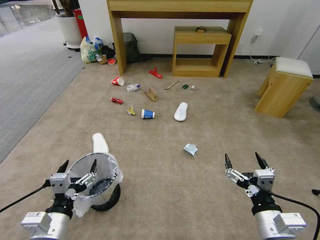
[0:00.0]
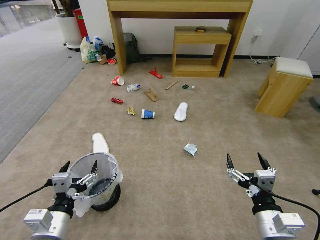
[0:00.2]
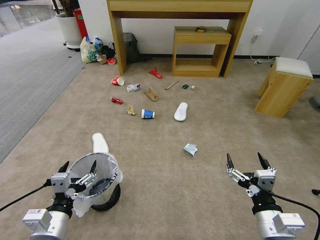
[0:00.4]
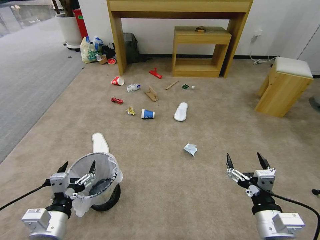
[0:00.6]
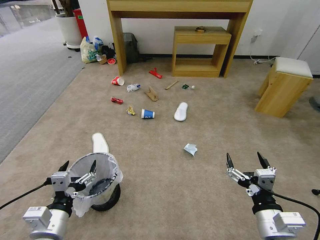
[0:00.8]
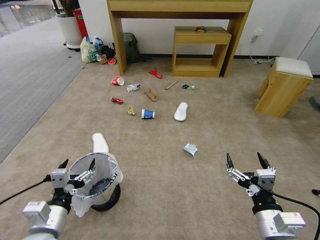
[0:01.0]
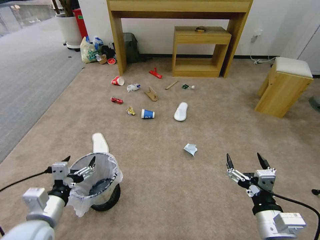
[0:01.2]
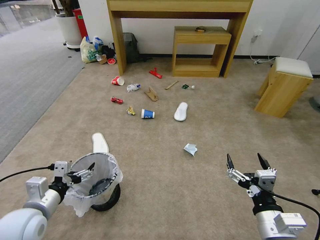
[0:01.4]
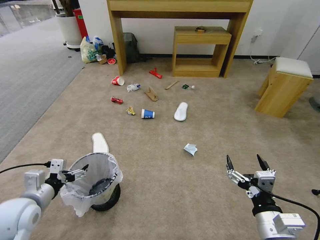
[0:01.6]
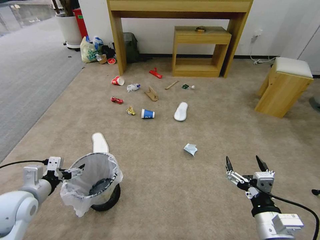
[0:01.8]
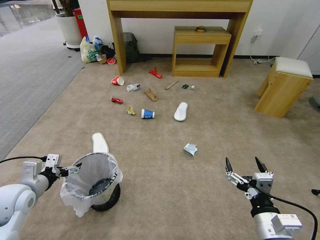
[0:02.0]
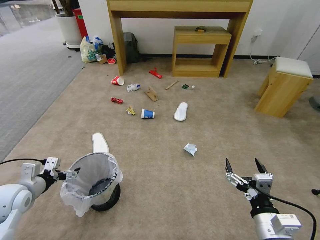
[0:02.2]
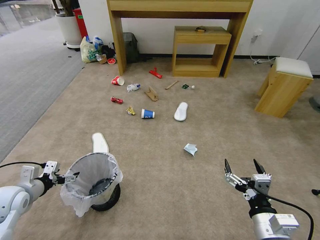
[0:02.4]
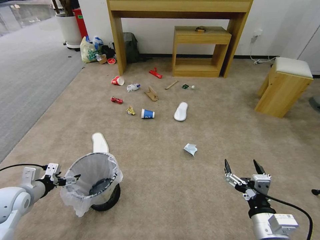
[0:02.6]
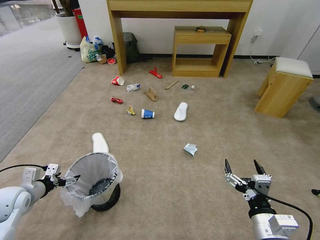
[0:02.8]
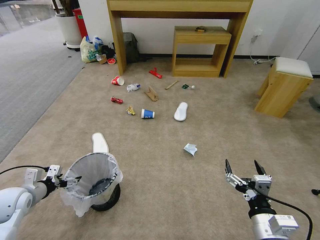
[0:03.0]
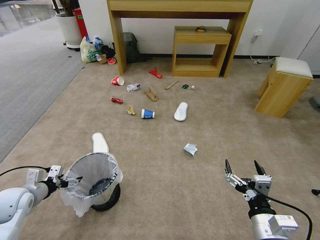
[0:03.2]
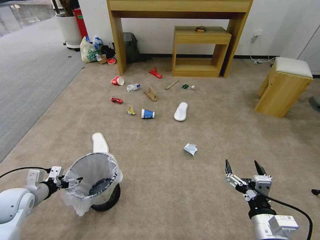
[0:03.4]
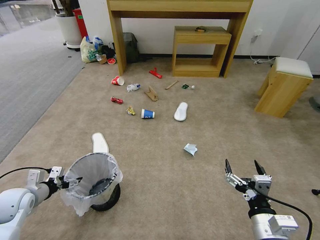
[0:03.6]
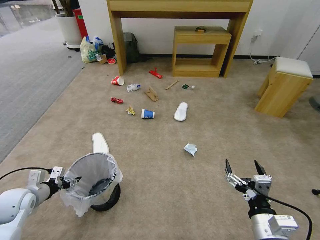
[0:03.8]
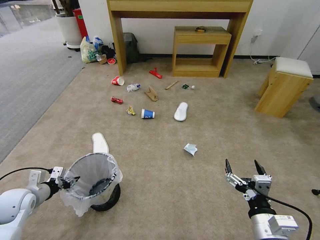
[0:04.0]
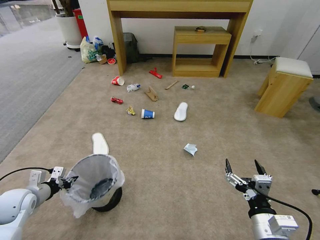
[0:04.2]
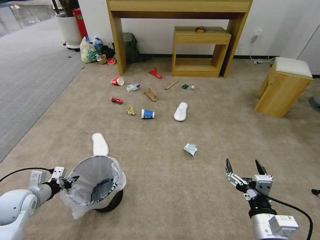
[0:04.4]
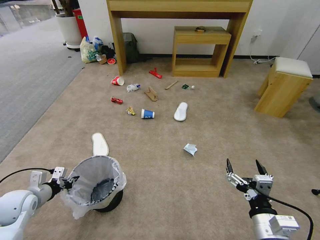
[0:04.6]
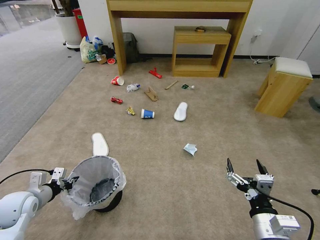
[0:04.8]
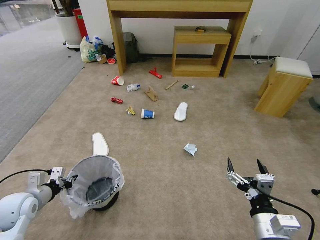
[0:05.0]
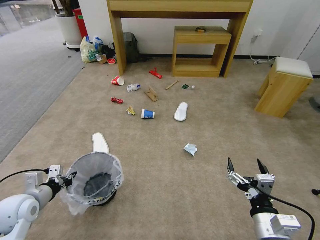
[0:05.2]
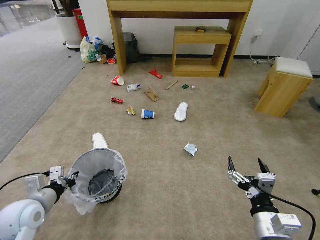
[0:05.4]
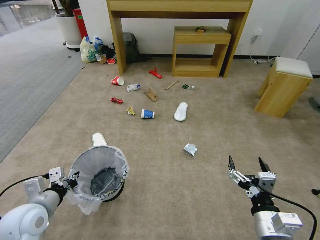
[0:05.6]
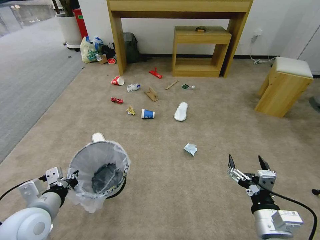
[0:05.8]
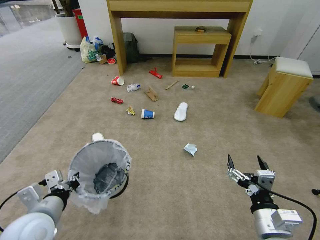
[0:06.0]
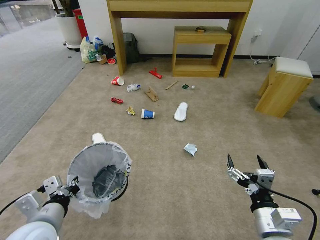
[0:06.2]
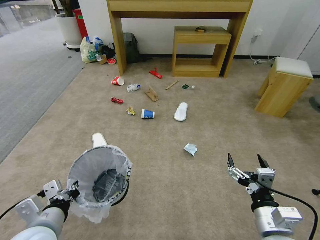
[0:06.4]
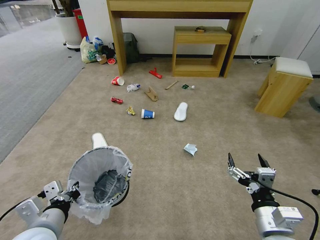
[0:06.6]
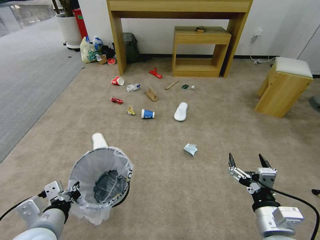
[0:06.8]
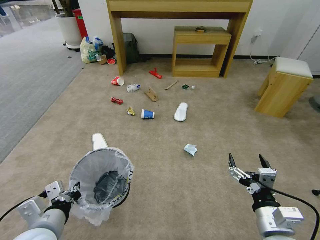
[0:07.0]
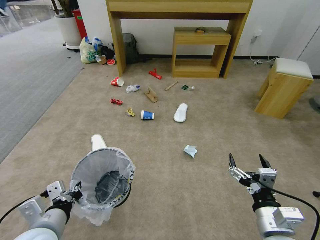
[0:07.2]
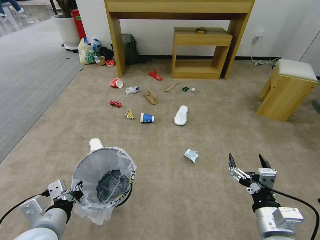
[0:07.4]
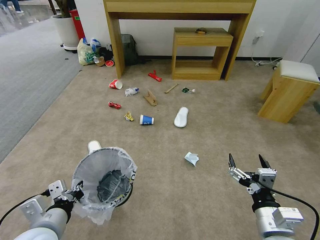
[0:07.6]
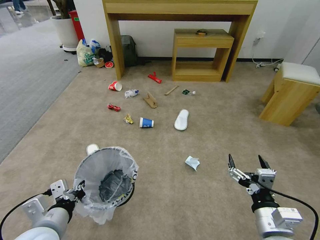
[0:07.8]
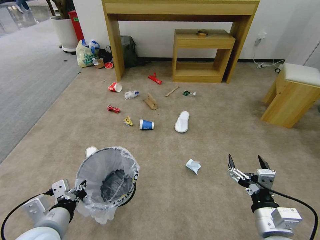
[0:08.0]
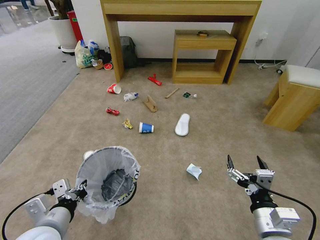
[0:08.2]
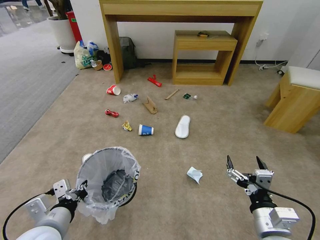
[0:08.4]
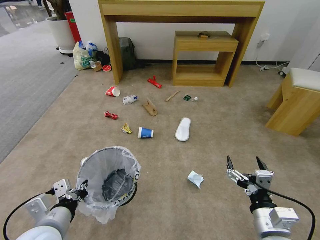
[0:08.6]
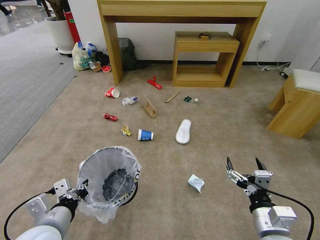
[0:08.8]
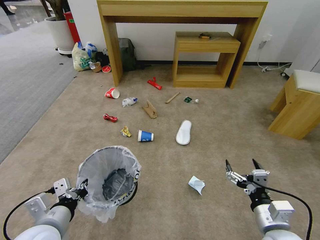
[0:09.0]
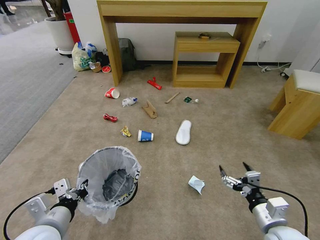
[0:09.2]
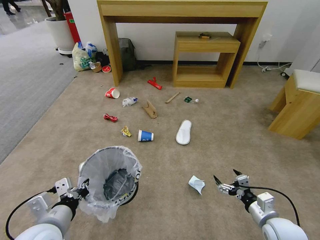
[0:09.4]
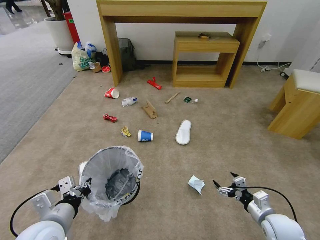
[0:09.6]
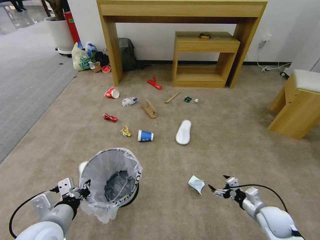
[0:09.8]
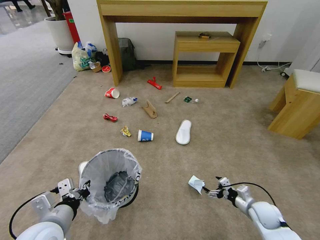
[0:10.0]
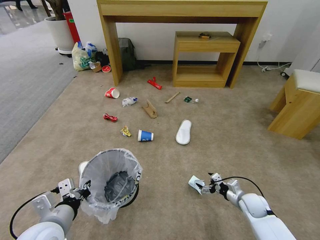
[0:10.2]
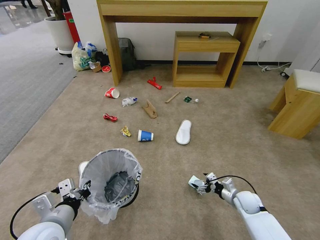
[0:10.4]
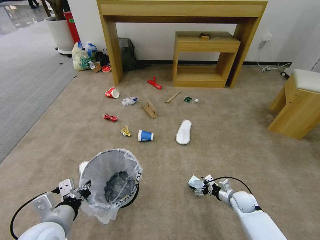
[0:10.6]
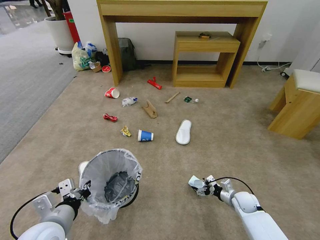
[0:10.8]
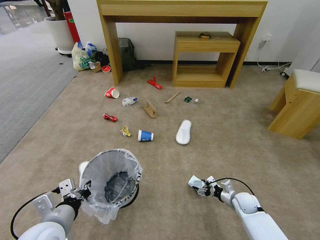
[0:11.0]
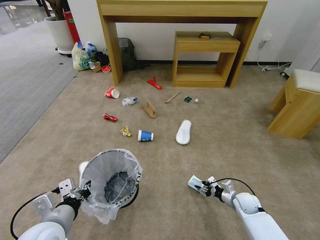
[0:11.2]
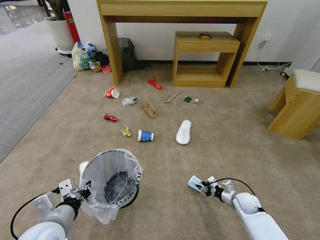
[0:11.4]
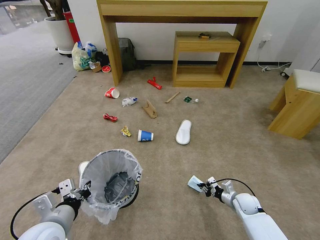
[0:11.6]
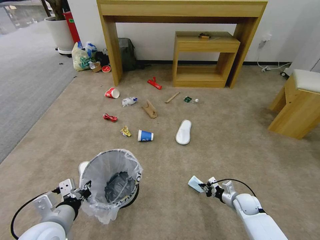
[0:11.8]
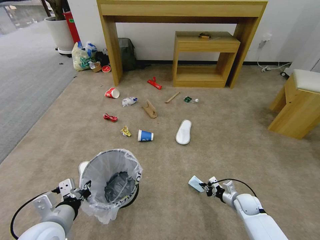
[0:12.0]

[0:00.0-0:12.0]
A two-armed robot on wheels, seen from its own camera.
Task of the whole recording: Pick up the trash bin and place the garbage on the floor into it.
0:01.6 to 0:03.0: The left gripper travels to the left, forward and downward by some 10 cm.
0:03.0 to 0:04.4: The left gripper closes.
0:04.4 to 0:06.0: The left gripper goes about 20 cm to the right, backward and upward.
0:06.0 to 0:07.6: The grippers move only a little.
0:09.0 to 0:10.4: The right gripper shifts roughly 25 cm downward and forward.
0:10.4 to 0:12.0: The right gripper closes its fingers.

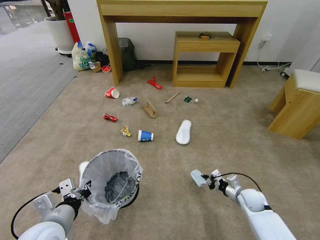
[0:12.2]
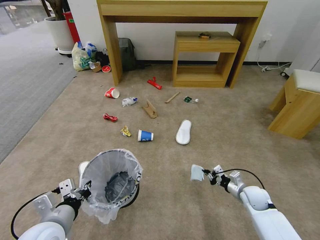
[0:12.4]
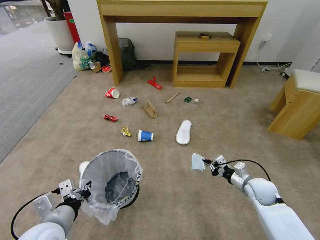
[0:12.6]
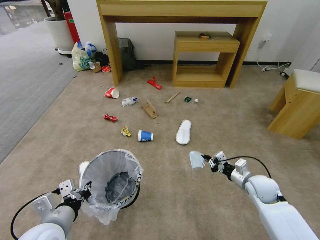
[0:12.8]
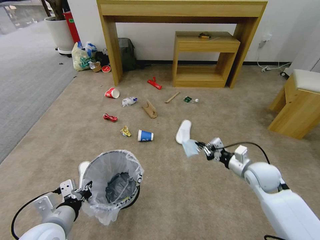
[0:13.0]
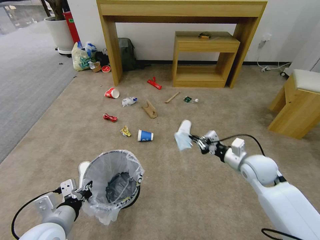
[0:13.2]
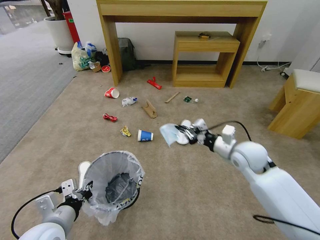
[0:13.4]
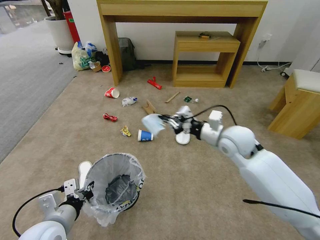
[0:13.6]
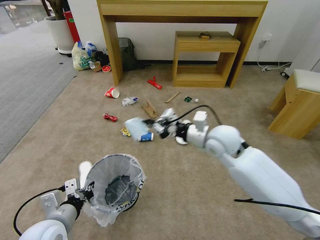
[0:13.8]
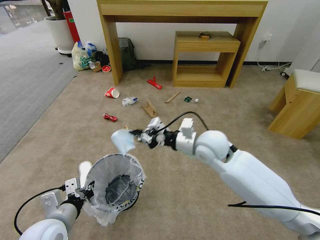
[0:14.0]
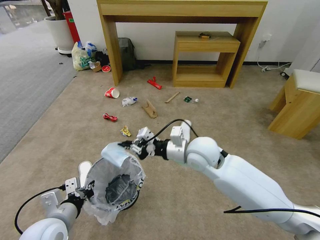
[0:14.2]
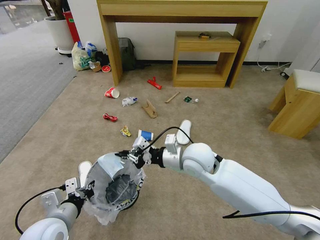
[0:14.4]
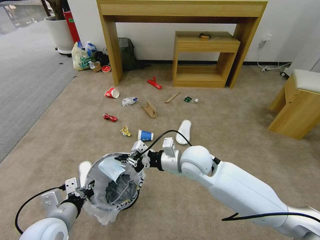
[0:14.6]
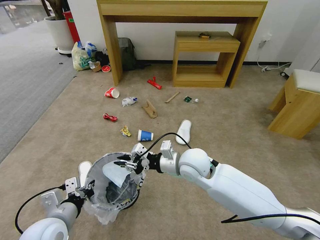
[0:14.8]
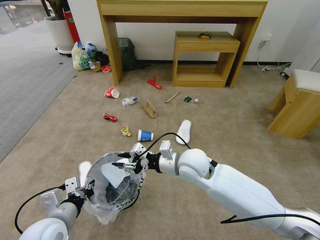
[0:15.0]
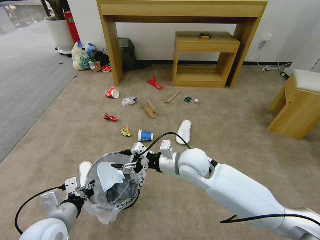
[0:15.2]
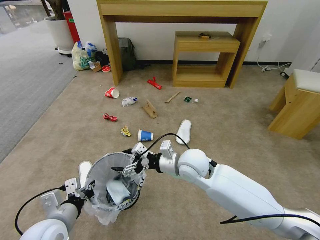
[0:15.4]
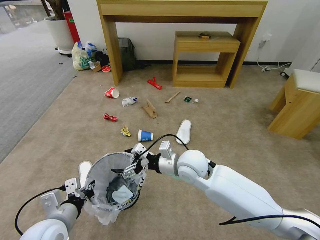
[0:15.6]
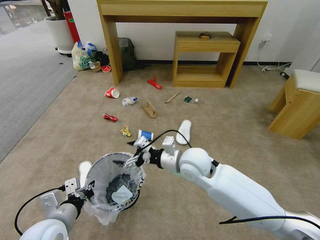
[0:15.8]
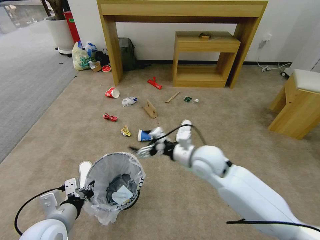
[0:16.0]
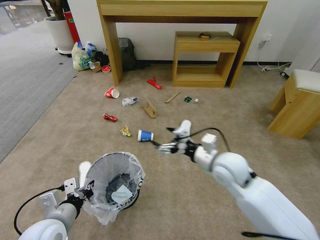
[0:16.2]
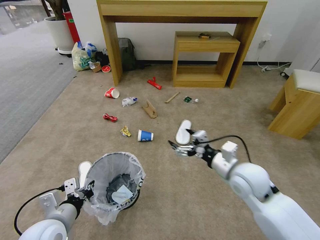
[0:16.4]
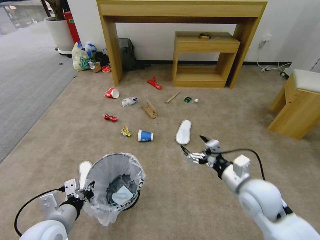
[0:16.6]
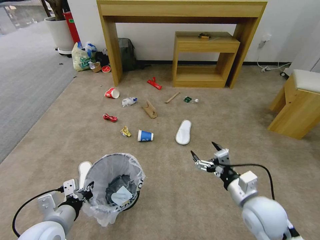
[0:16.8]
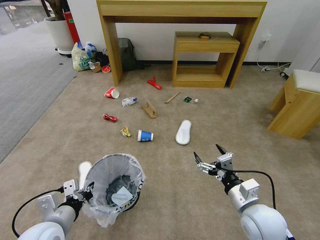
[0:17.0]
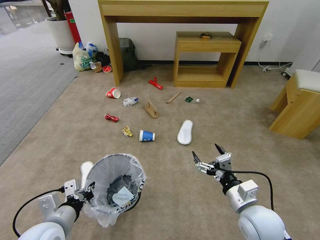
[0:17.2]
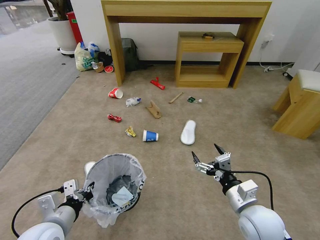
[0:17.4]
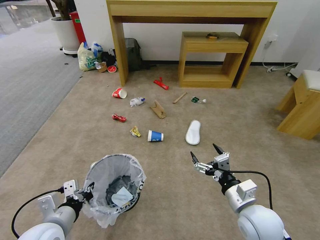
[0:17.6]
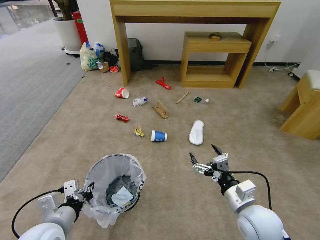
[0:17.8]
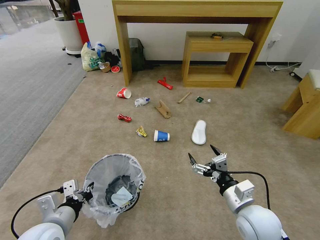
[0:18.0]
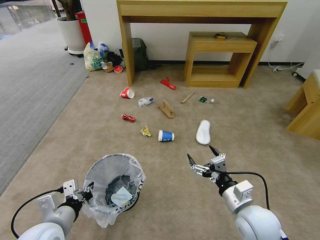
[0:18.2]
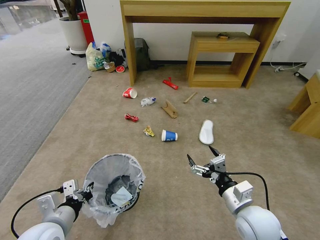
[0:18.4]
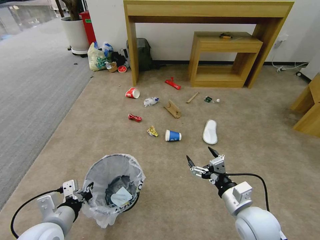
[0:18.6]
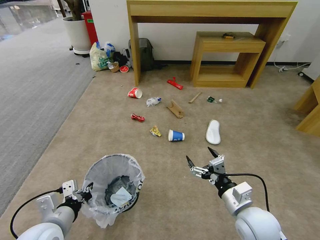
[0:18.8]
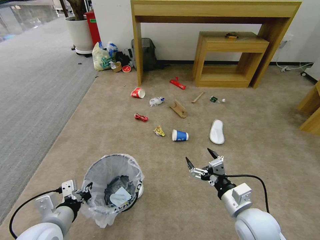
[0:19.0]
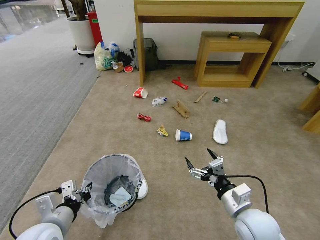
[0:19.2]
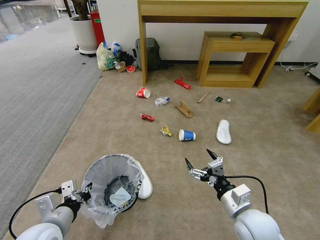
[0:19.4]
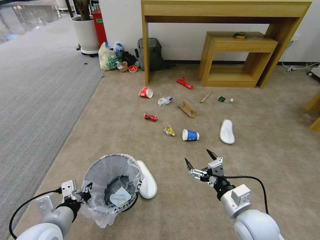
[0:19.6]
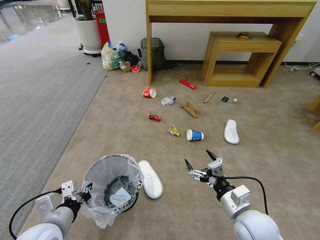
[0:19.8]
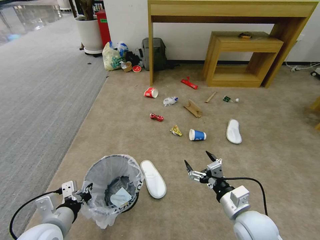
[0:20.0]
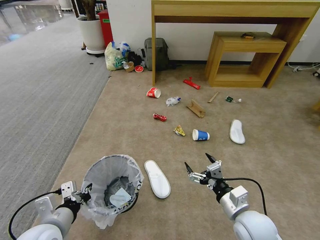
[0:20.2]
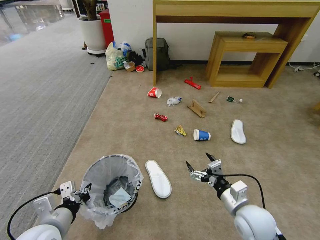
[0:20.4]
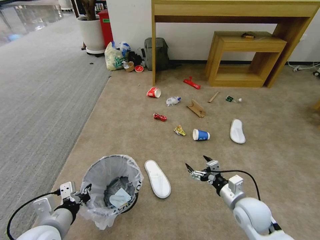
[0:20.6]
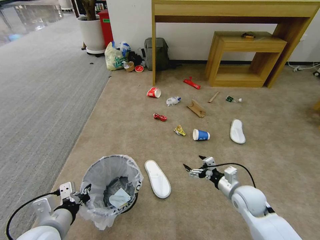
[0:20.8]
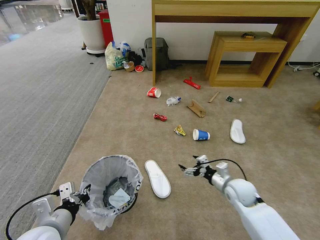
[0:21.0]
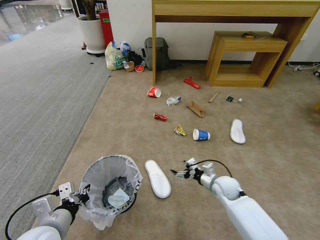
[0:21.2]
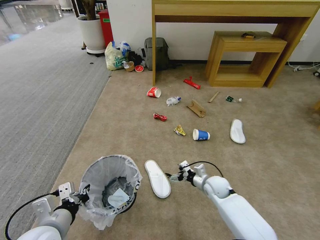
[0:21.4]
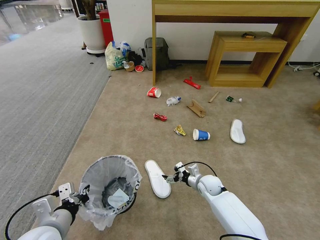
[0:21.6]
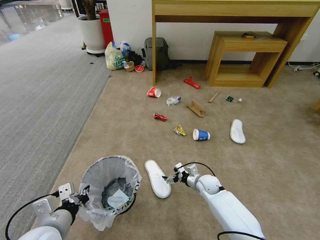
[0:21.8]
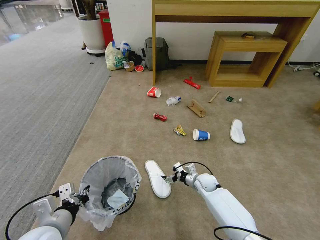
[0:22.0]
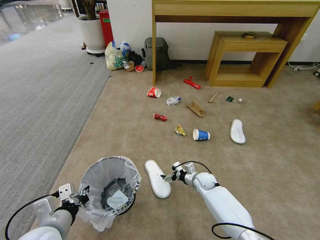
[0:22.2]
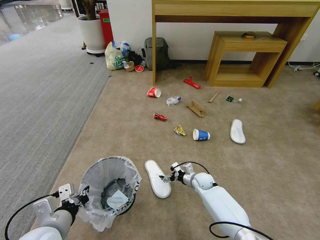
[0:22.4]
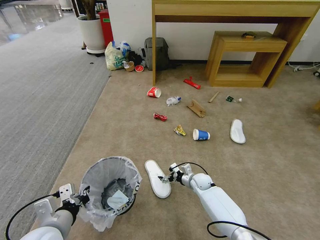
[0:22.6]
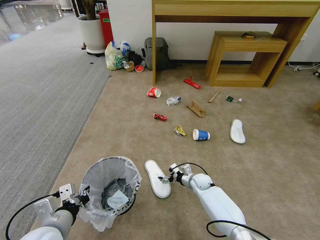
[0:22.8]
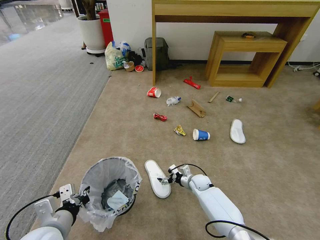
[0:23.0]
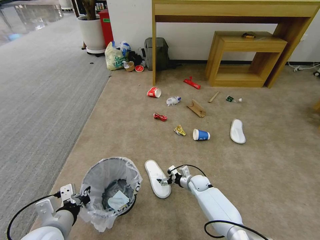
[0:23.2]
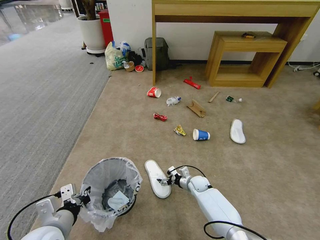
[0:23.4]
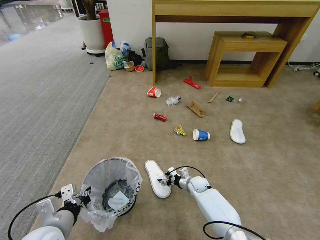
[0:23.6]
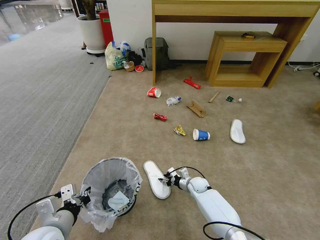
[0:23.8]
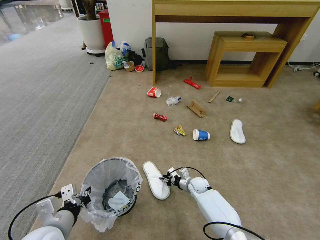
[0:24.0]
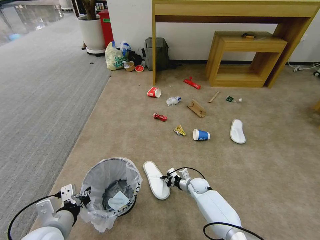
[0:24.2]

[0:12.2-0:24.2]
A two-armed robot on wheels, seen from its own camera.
Task of the whole recording: Pick up the trash bin and place the garbage on the floor into it.
0:12.2 to 0:13.8: The right gripper shifts some 35 cm upward and to the left.
0:13.8 to 0:15.2: The right gripper is displaced to the left and downward by approximately 10 cm, and opens up.
0:15.2 to 0:16.6: The right gripper travels to the right and backward by some 20 cm, and opens its fingers.
0:16.6 to 0:18.2: The right gripper heads backward, covering roughly 5 cm.
0:19.8 to 0:21.2: The right gripper travels forward and downward by roughly 20 cm.
0:21.2 to 0:22.6: The right gripper shifts some 15 cm downward, to the left and forward.
0:22.6 to 0:24.2: The right gripper closes.
